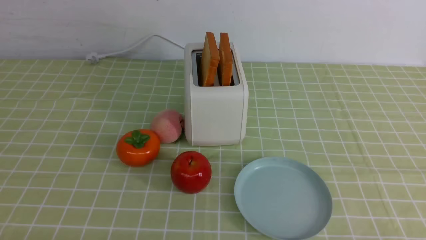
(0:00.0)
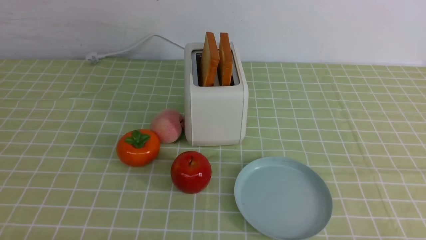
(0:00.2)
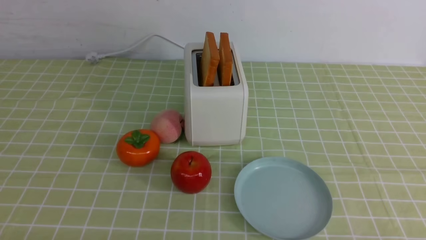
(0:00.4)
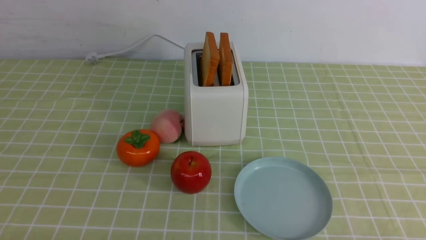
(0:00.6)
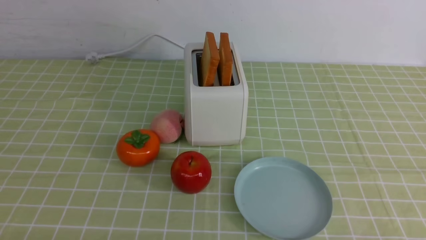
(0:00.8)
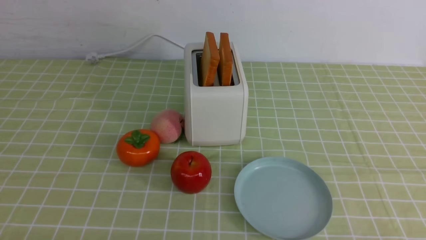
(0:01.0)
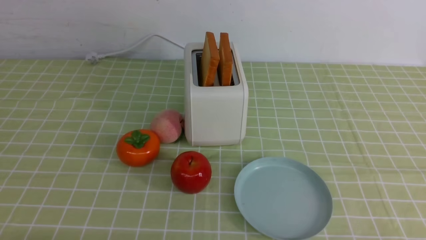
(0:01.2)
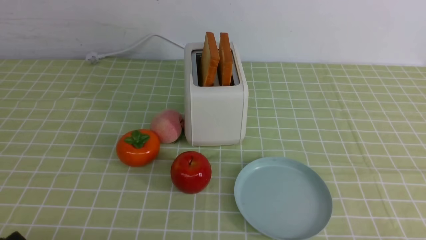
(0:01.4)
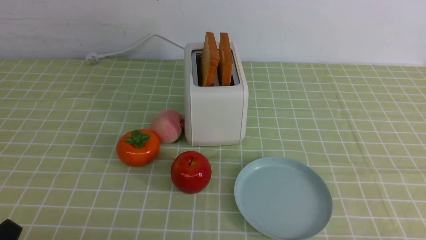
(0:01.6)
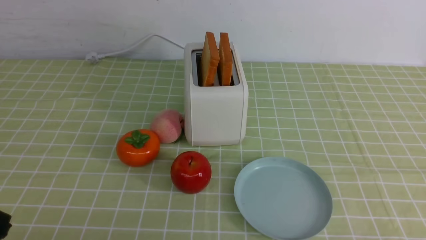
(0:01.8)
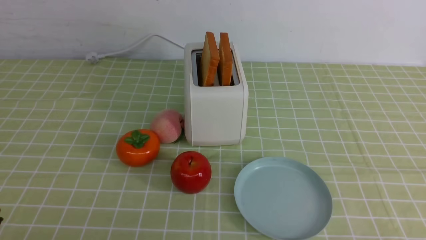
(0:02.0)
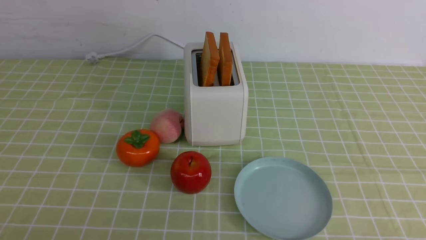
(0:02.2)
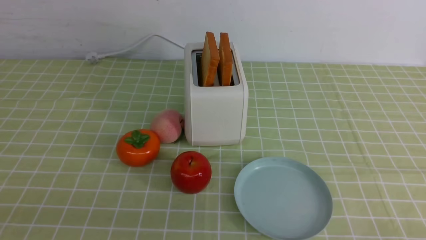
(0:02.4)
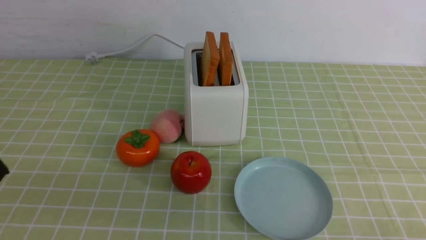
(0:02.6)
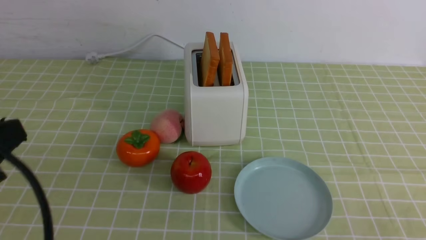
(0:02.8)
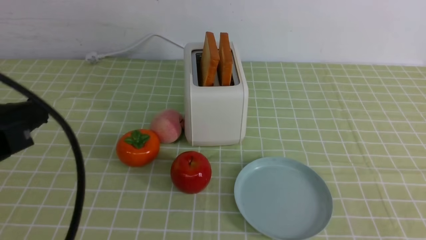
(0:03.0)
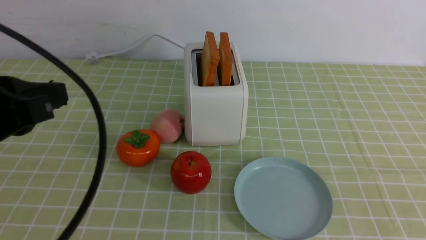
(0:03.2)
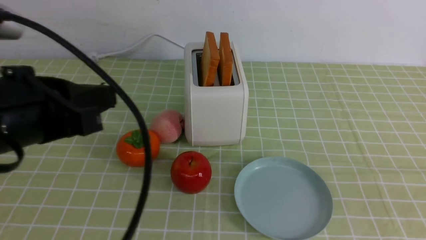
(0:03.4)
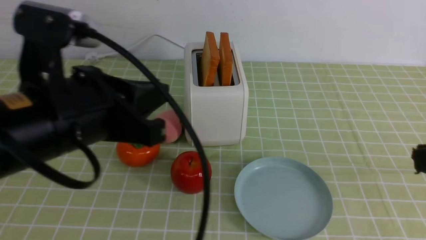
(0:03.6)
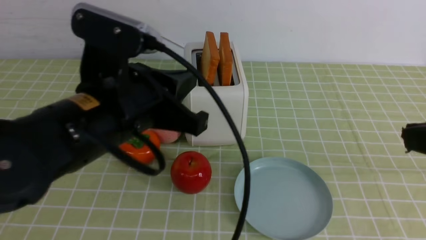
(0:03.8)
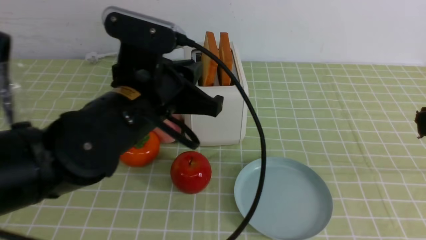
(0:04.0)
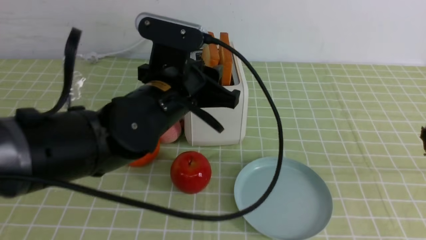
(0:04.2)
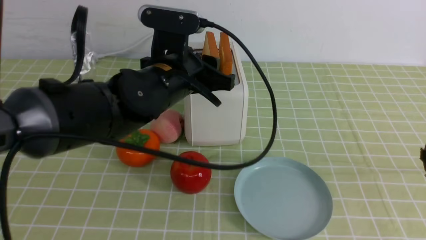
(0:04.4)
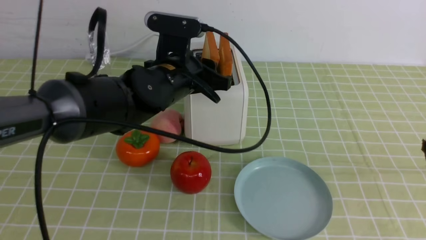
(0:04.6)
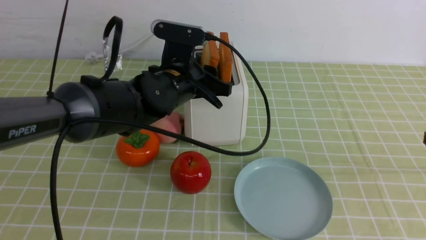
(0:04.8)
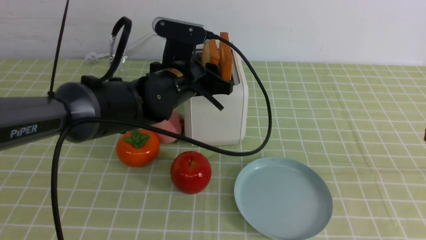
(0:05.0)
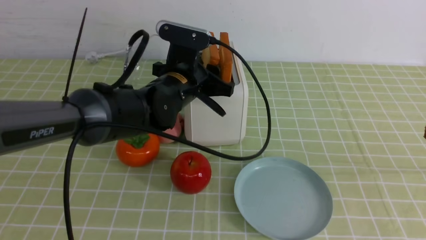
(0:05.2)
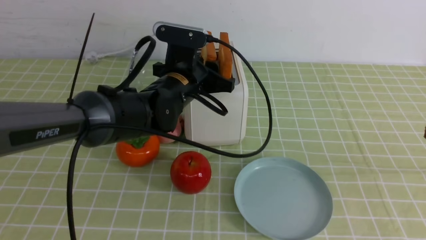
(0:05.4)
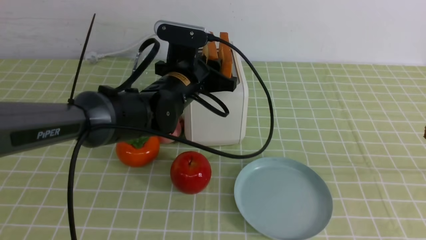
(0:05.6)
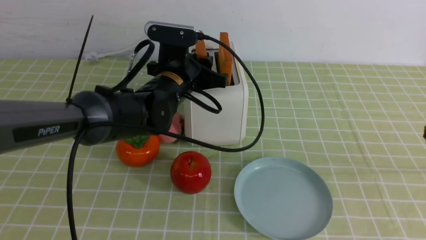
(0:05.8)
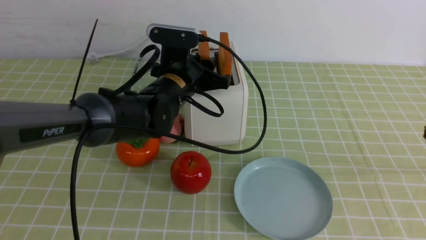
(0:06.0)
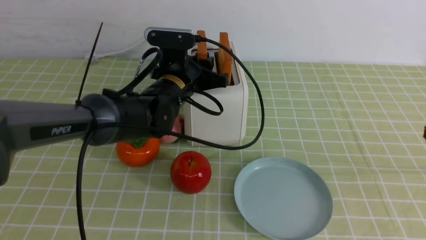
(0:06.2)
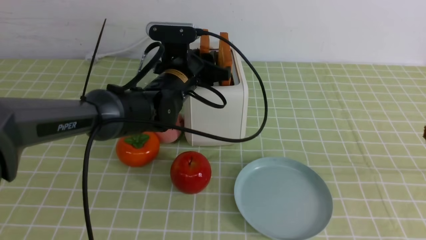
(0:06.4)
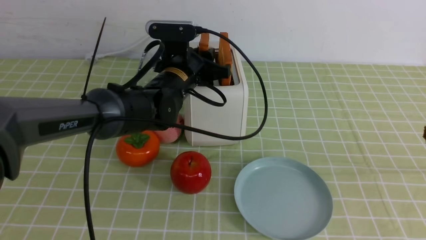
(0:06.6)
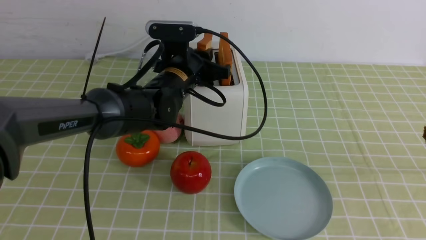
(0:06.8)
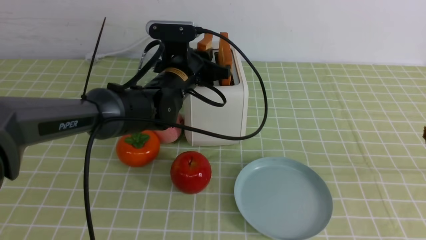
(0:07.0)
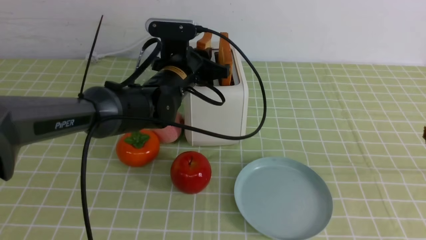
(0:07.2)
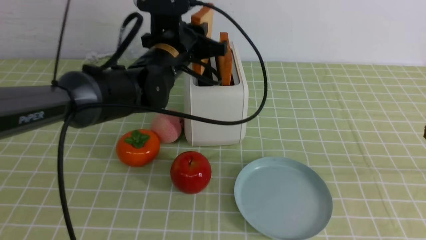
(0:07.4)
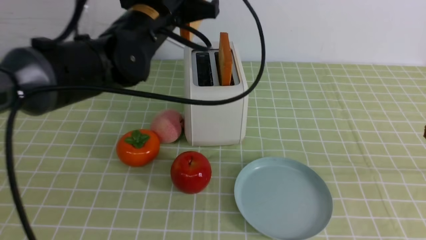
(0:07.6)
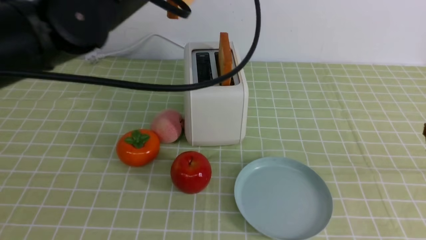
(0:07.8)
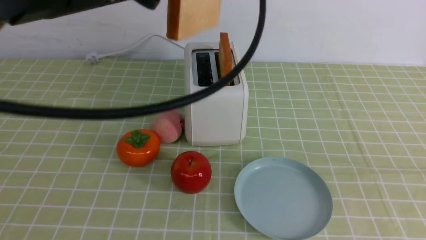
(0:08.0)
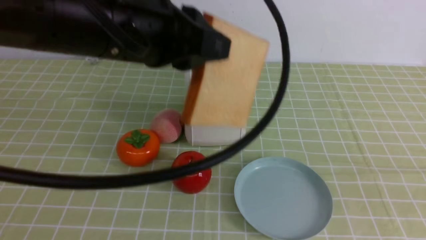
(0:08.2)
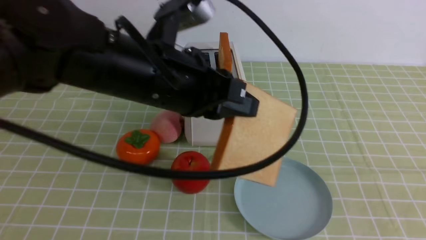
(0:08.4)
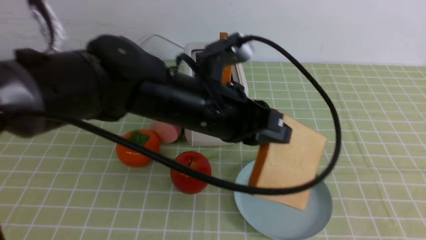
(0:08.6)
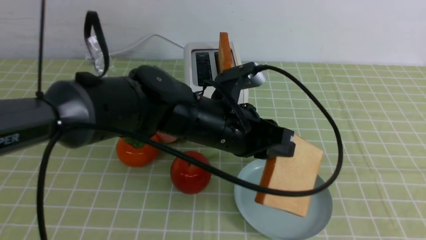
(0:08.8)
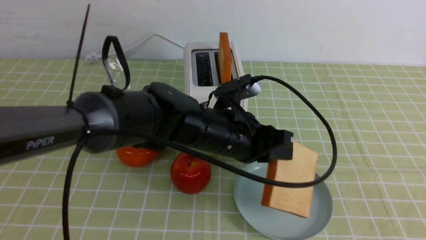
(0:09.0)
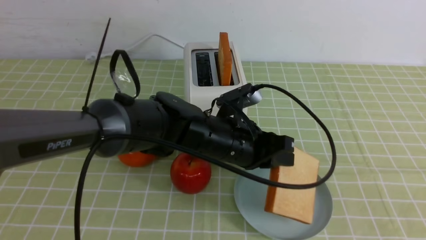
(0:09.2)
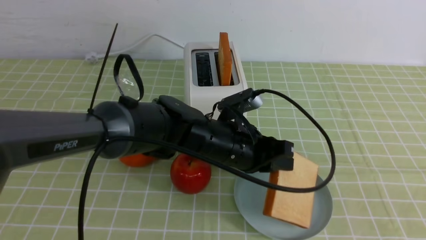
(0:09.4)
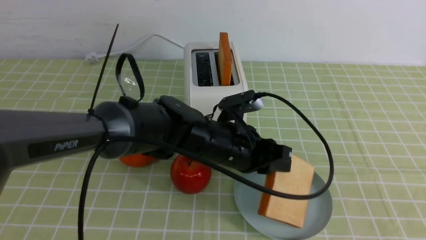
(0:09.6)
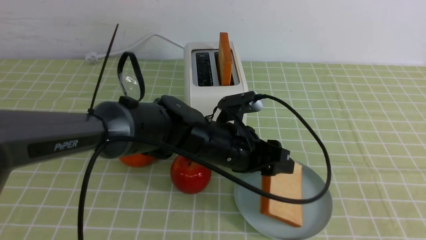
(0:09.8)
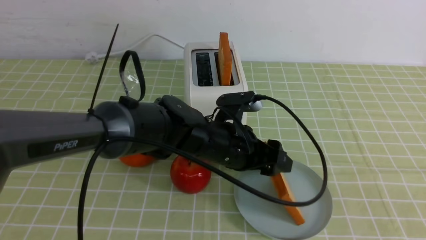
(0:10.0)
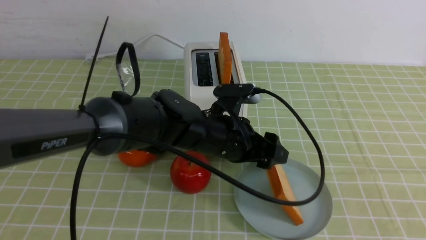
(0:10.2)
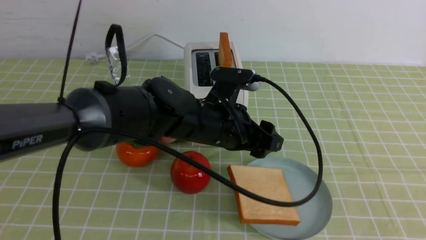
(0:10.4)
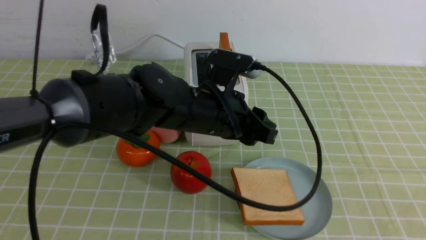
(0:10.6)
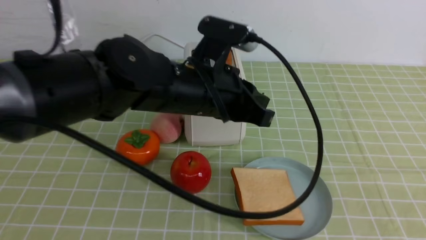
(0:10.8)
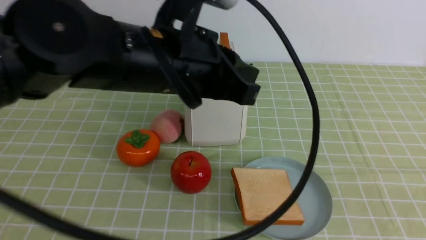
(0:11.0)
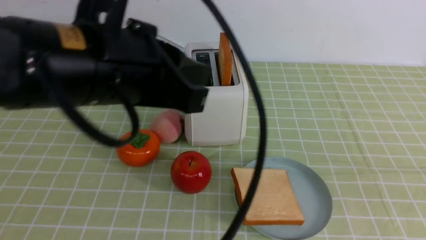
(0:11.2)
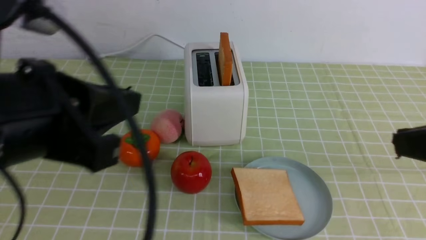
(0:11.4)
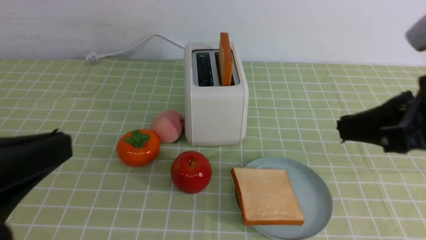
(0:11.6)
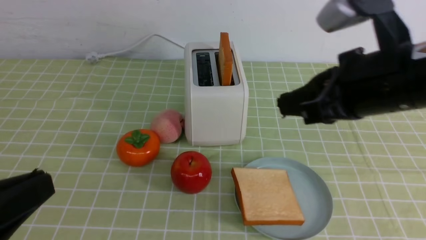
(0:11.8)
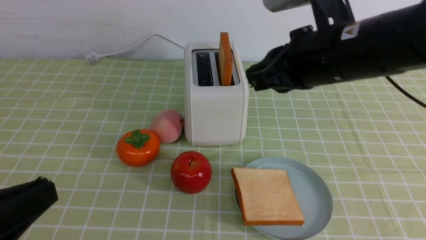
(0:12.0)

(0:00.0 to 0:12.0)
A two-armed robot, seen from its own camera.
Task of the whole recording: take toasted bread from bread machine on green coffee tablecloth place on plate.
Step, 0:00.0 - 0:07.4: use the left arm to take out a slice of bread.
Step, 0:07.6 - 0:10.6: use the left arm to put a slice of bread into the empty plate.
0:01.6 - 0:03.0: The left gripper shifts approximately 20 cm upward and forward, and closes.
0:03.0 - 0:04.4: The right gripper heads upward and forward, covering some 10 cm. The left gripper travels forward and to the right by about 25 cm, and opens.
0:04.4 - 0:06.0: The left gripper goes approximately 5 cm forward.
0:06.0 - 0:07.6: The left gripper is displaced upward by approximately 15 cm.
0:07.6 - 0:09.0: The left gripper goes roughly 15 cm downward, to the right and backward. Meanwhile the right gripper shifts some 10 cm backward.
0:09.0 - 0:10.4: The left gripper opens its fingers.
0:10.4 - 0:12.0: The right gripper is displaced forward and to the left by approximately 30 cm; the left gripper goes roughly 35 cm backward and to the left, and closes up.

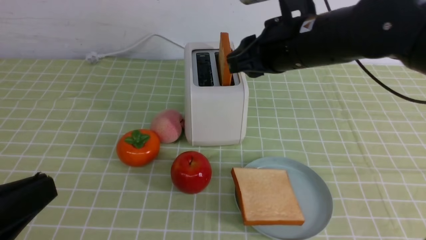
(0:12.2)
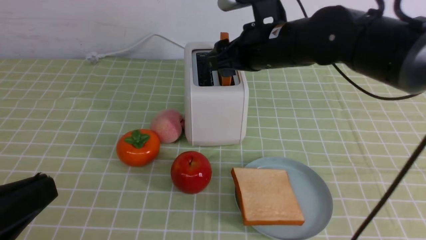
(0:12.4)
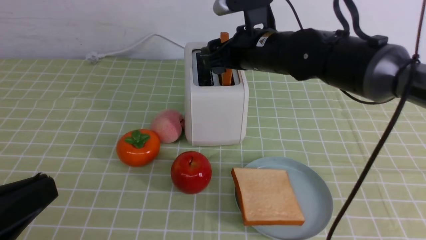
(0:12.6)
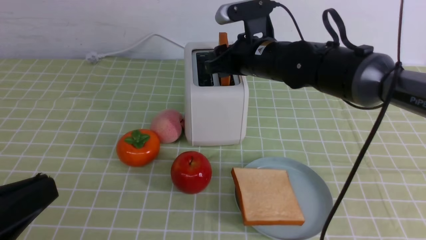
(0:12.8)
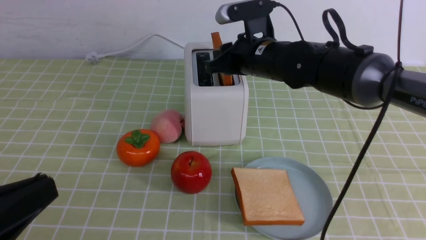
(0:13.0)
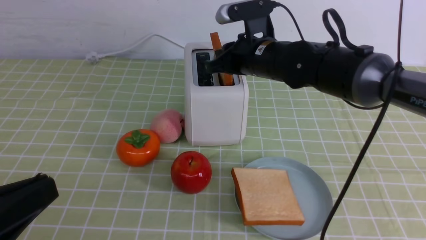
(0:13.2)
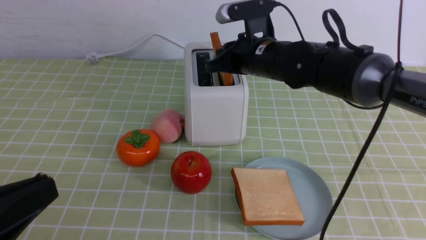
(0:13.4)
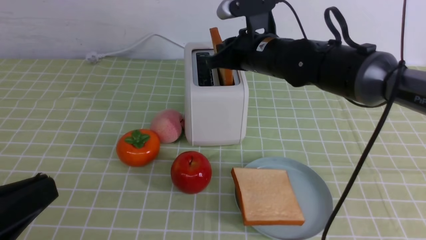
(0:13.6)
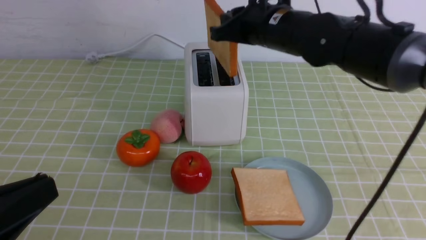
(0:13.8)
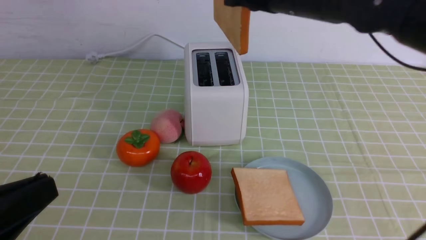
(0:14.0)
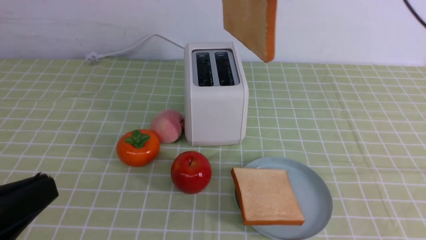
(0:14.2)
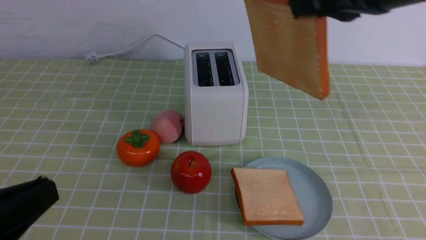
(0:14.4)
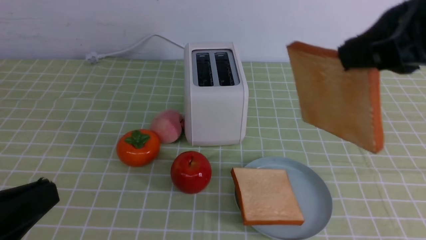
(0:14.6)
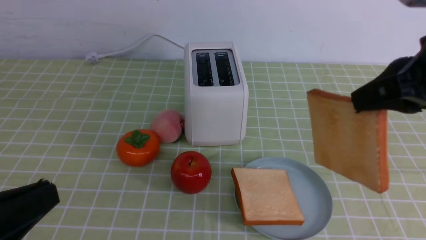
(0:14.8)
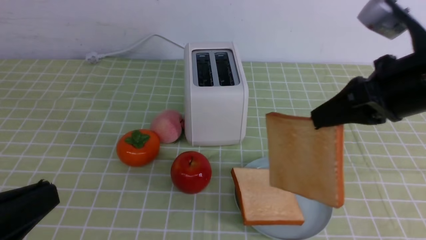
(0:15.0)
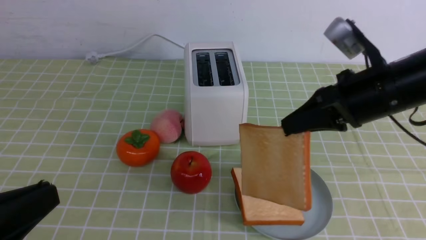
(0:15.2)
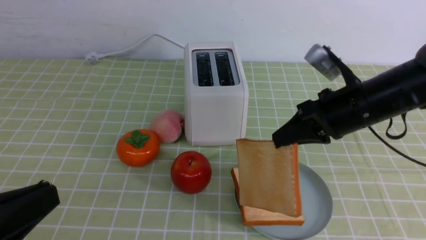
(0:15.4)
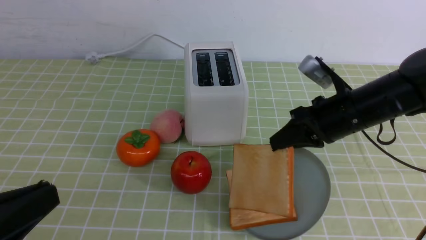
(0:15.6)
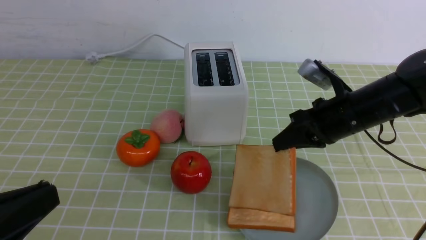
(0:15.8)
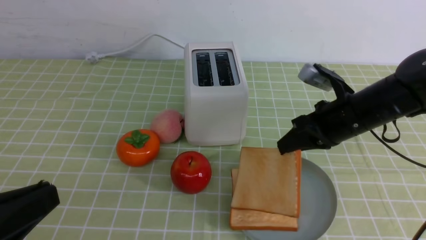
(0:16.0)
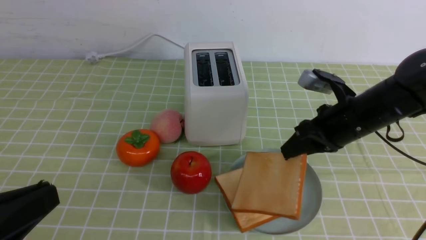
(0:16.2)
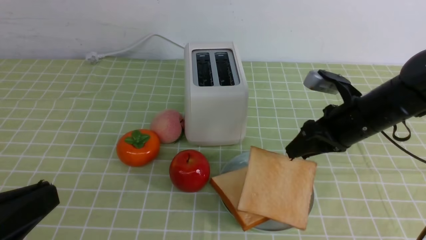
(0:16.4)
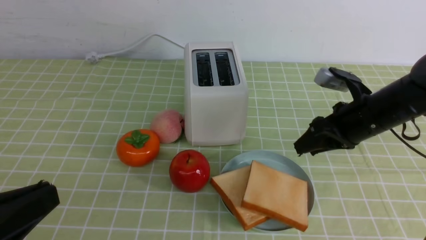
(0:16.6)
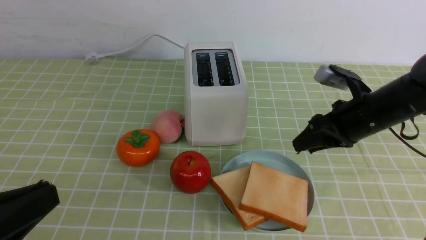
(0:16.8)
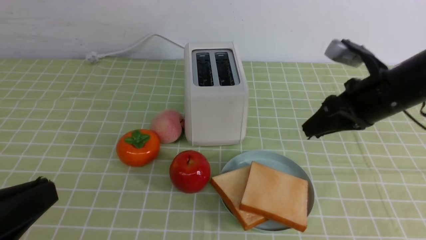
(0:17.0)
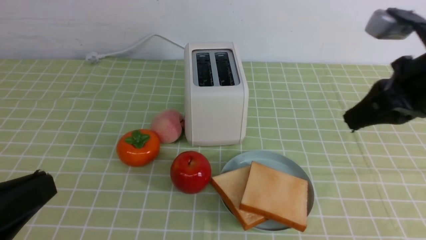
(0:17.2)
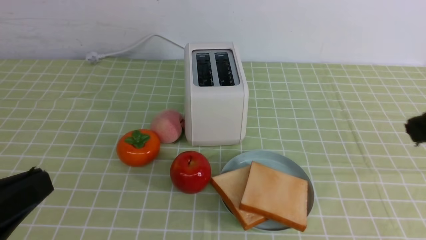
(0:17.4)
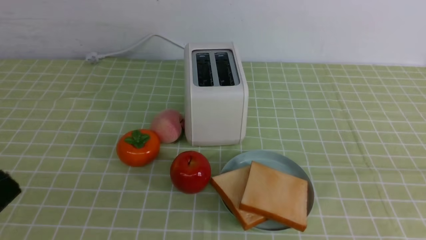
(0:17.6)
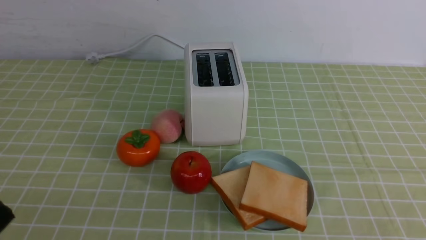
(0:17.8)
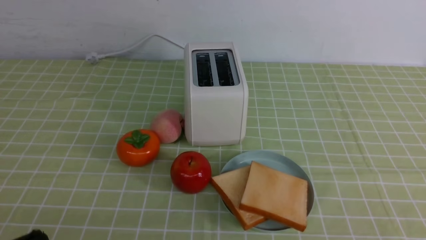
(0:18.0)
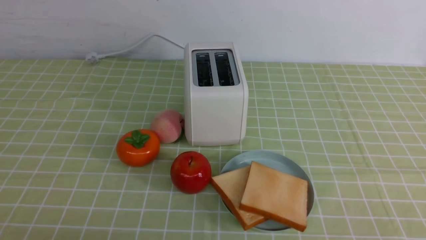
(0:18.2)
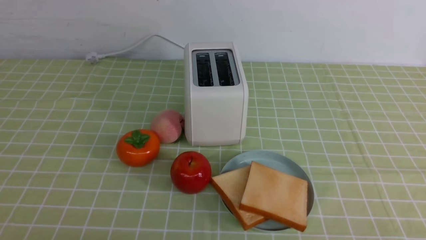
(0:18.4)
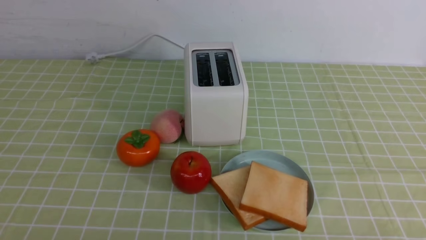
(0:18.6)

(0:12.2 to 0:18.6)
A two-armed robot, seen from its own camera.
Task of the whole recording: take toasted bread from bread machine on green coffee tablecloth place on plate.
Step, 0:12.2 - 0:14.0: use the right arm to take out a slice of bread.
Step, 0:14.2 - 0:17.0: use the right arm to put a slice of bread into the plate.
0:12.2 - 0:13.8: The right gripper is displaced forward by about 5 cm, and closes.
0:13.8 - 0:15.4: The right gripper moves to the right, downward and backward, roughly 15 cm.
0:15.4 - 0:17.0: The right gripper shifts by some 5 cm, and opens and closes again.
0:17.0 - 0:18.6: The right gripper travels backward and downward by roughly 30 cm, and closes up. The left gripper goes roughly 10 cm downward.